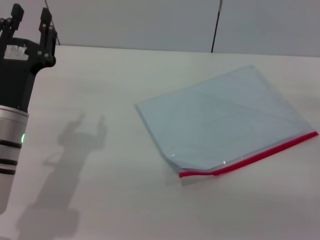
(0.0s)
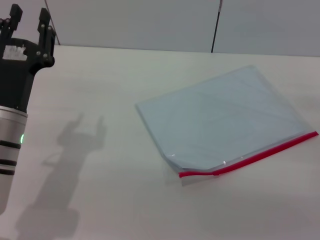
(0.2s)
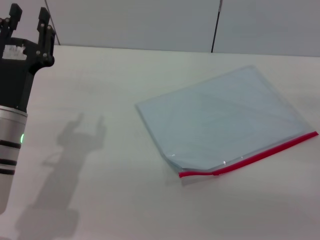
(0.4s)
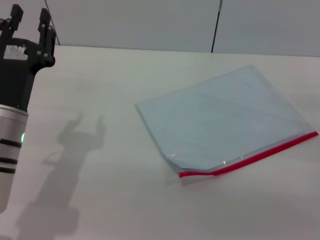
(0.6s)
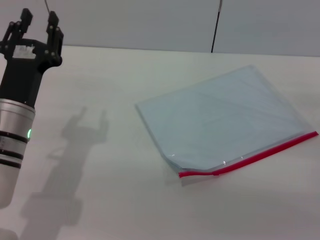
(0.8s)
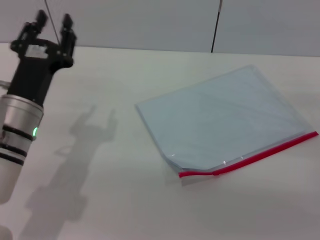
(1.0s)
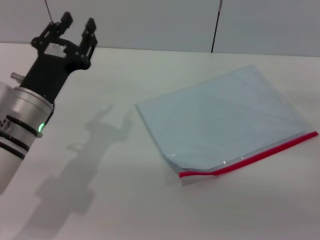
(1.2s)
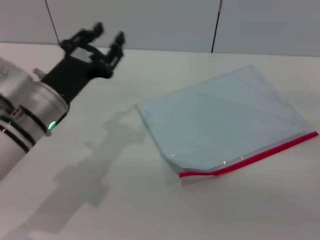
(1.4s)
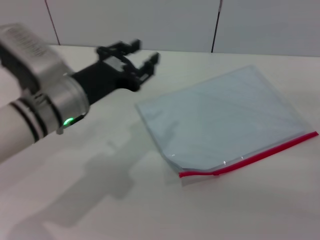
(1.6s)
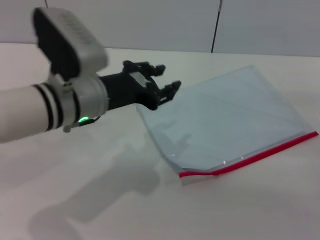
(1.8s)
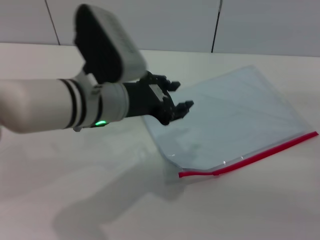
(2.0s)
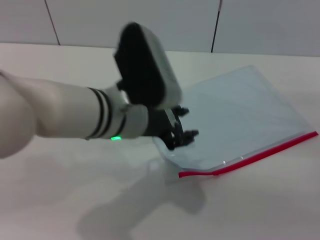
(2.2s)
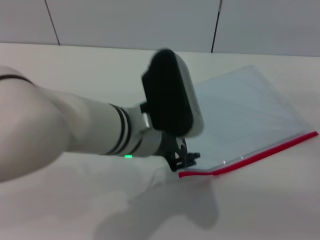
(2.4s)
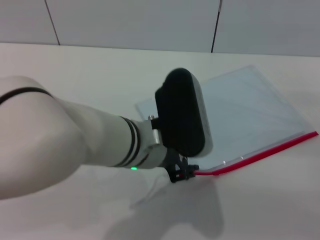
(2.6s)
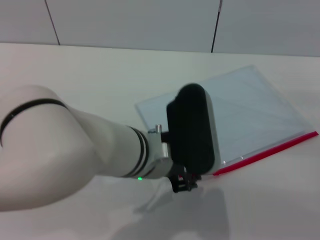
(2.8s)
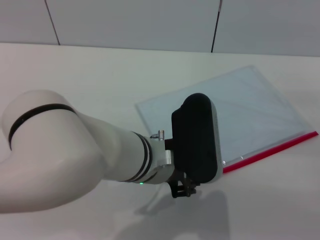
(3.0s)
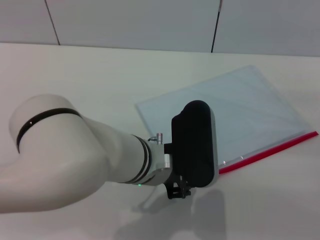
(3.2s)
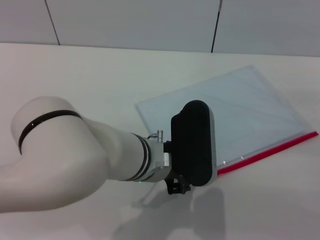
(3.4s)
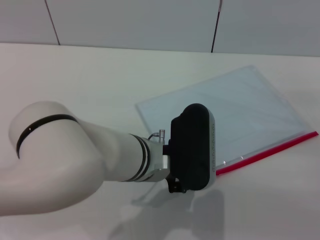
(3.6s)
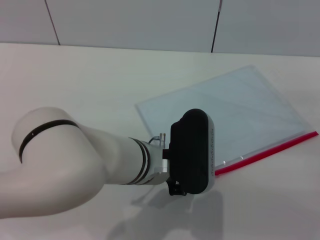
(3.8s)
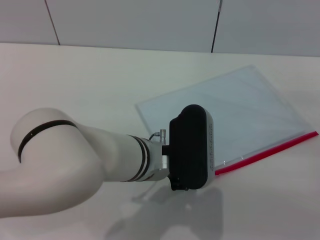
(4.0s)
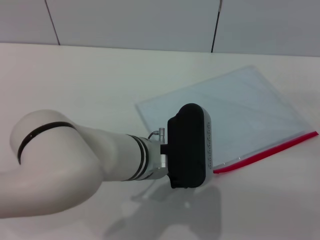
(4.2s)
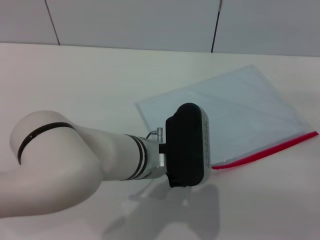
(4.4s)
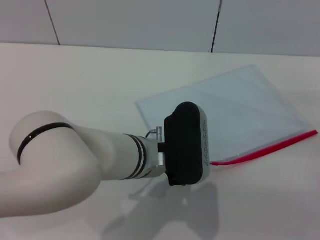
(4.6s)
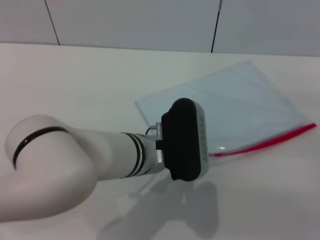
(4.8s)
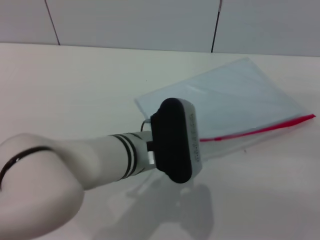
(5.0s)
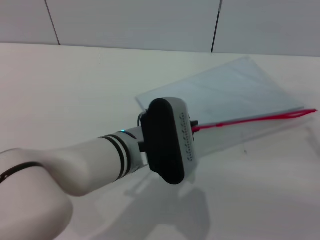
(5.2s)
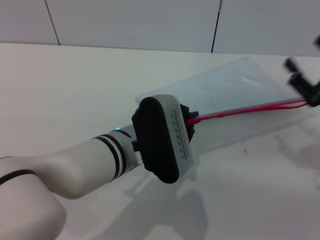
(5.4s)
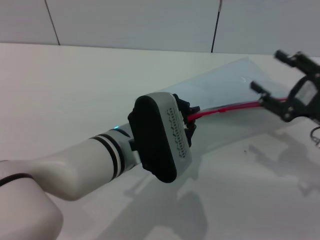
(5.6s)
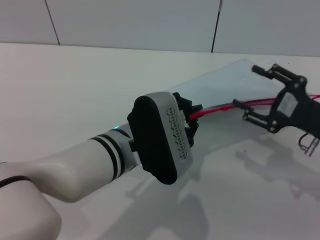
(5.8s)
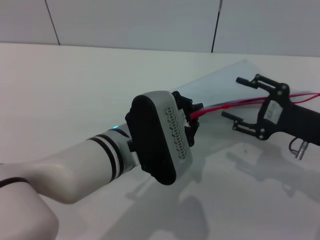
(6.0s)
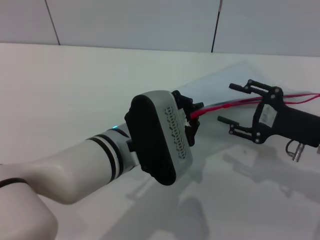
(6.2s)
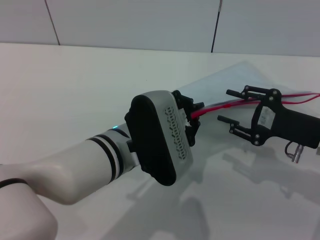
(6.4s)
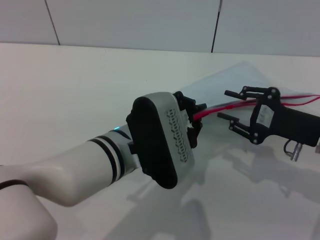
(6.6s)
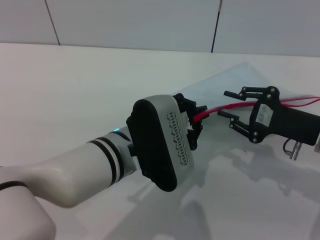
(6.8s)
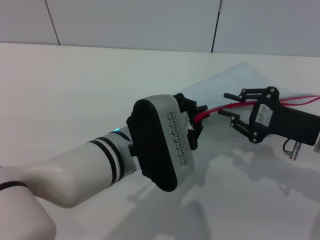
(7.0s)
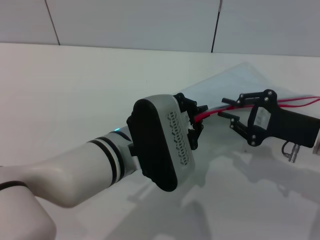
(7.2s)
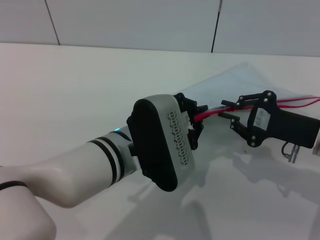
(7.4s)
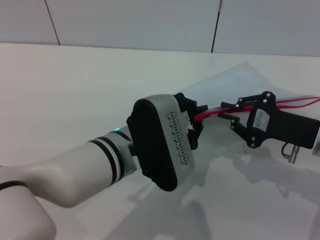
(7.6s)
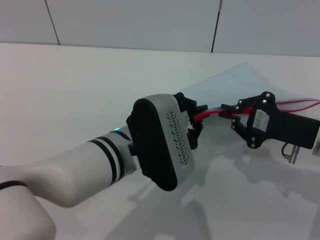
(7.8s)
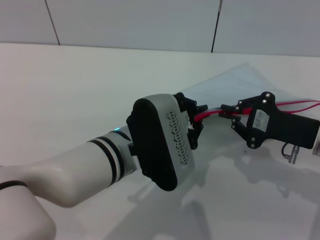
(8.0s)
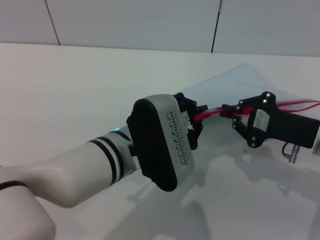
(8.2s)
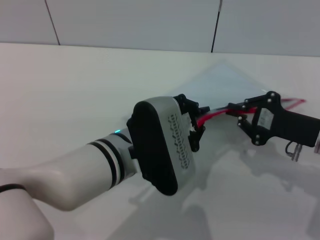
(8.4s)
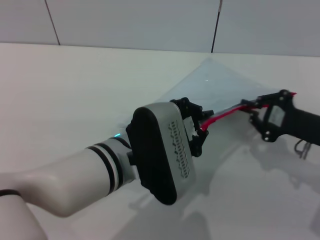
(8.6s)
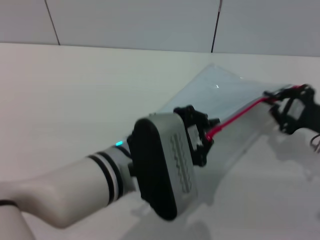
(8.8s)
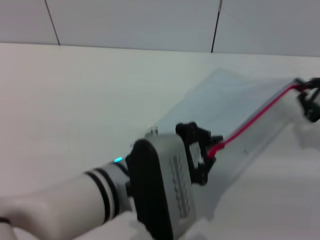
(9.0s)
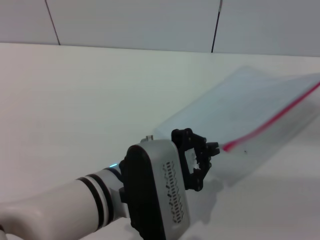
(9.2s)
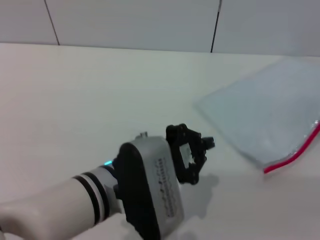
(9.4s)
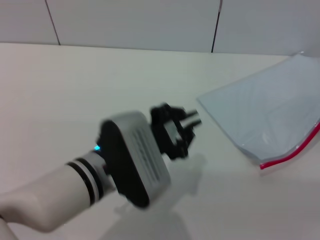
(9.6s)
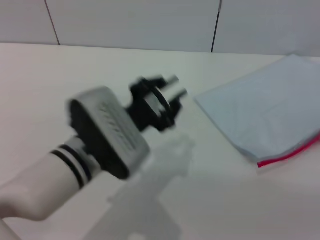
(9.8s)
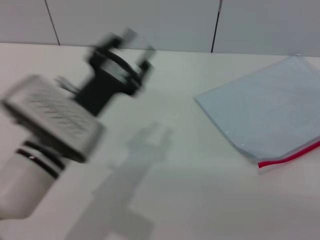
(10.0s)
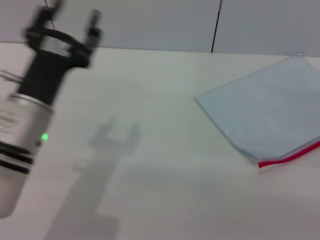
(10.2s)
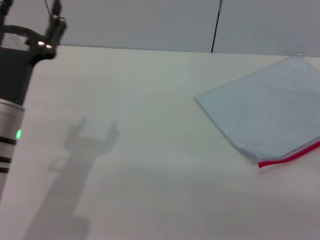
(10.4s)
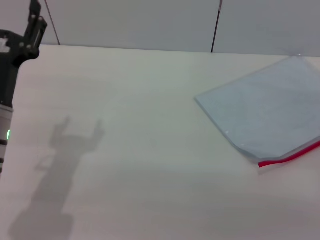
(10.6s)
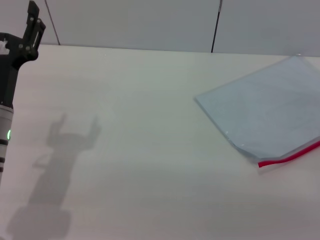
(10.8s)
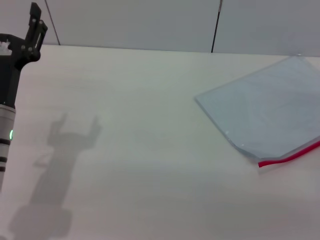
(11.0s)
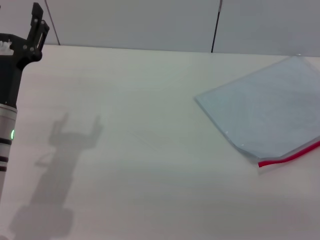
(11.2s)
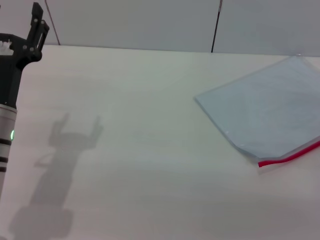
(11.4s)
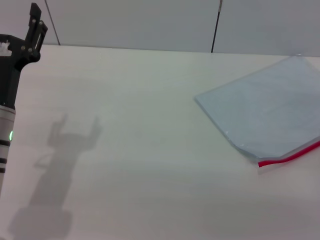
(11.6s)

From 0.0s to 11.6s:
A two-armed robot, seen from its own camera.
Step, from 0.0s to 5.6s: Pick up the transparent plastic bag with the left gripper.
Step, from 5.8s to 9.0s: Pulling up the zipper on the transparent plastic bag with the right gripper to close it.
Step, from 9.2s to 10.2s: Place the transparent plastic bag.
From 1.4s to 2.8s: The left gripper travels to the right by roughly 15 cm.
From 2.8s to 4.4s: The grippers move only a little.
From 4.4s to 5.8s: The right gripper travels to the left by about 5 cm.
From 5.8s to 7.2s: The right gripper closes its fingers.
From 8.8s to 10.2s: The right gripper heads to the right and backward, covering about 10 cm, and opens its fingers. Meanwhile the left gripper heads to the left, covering some 10 cm, and opens.
From 10.2s to 11.6s: The left gripper shifts by roughly 5 cm.
